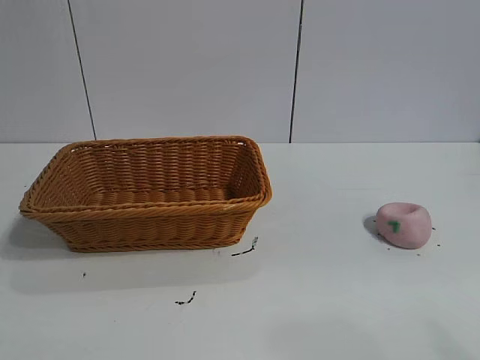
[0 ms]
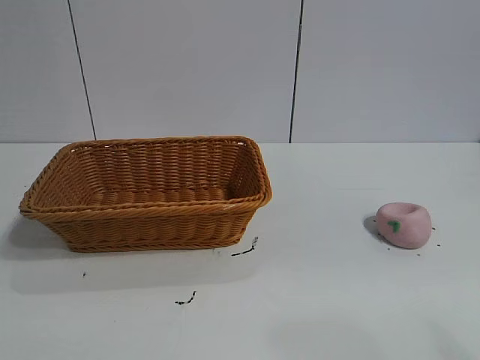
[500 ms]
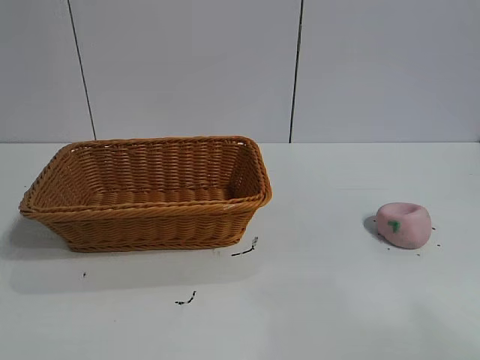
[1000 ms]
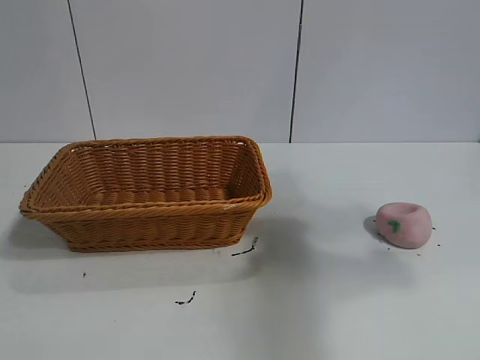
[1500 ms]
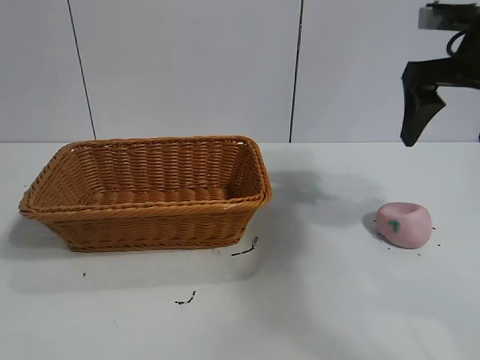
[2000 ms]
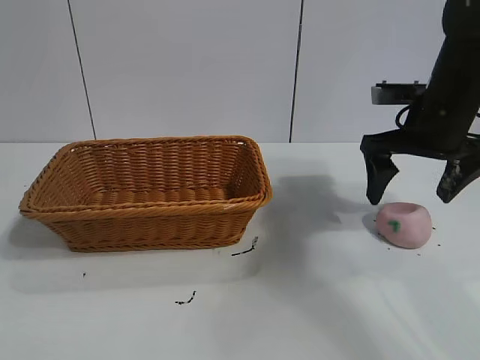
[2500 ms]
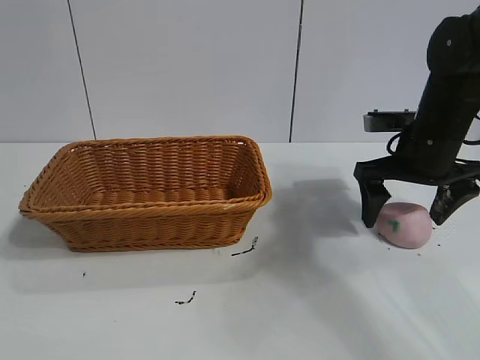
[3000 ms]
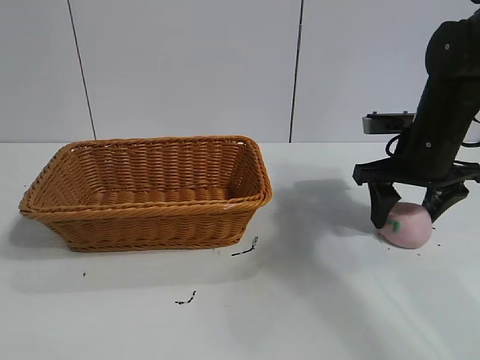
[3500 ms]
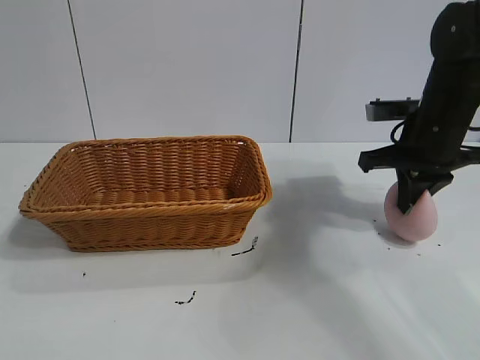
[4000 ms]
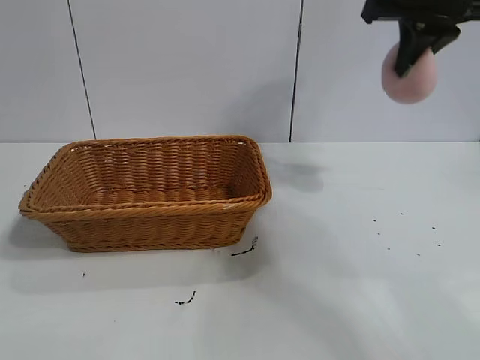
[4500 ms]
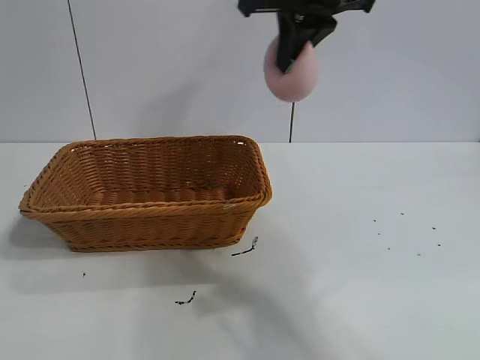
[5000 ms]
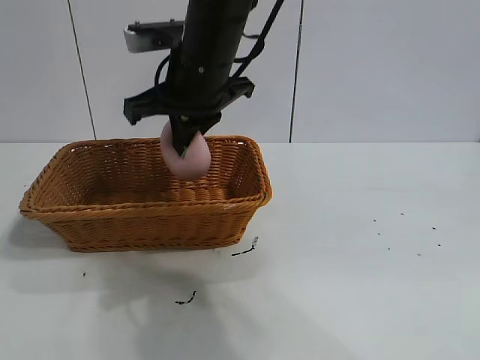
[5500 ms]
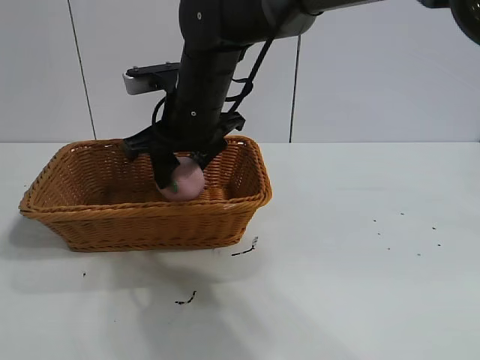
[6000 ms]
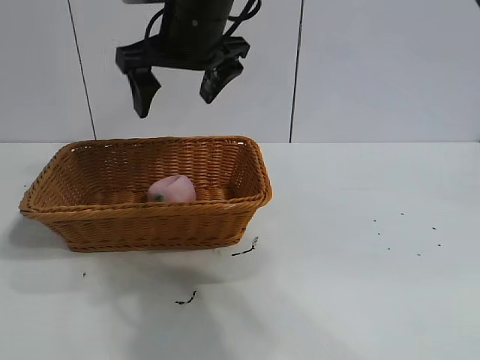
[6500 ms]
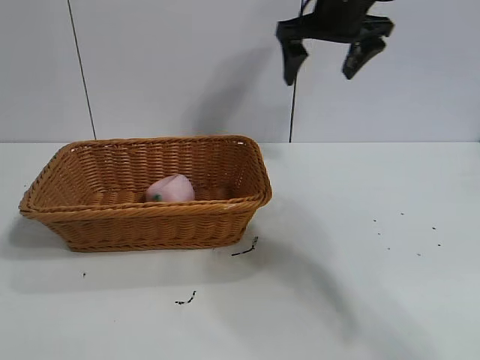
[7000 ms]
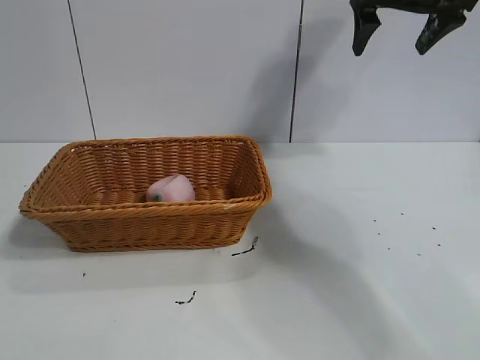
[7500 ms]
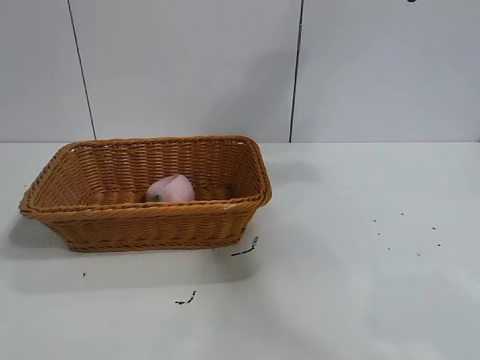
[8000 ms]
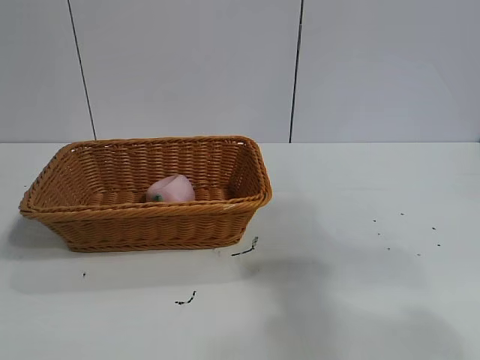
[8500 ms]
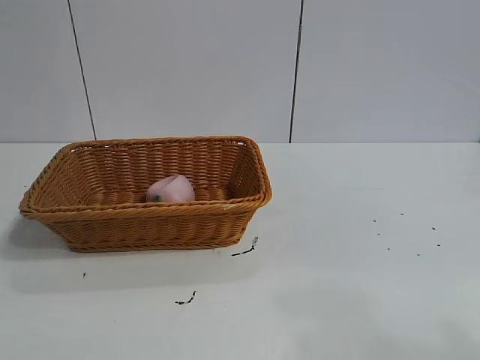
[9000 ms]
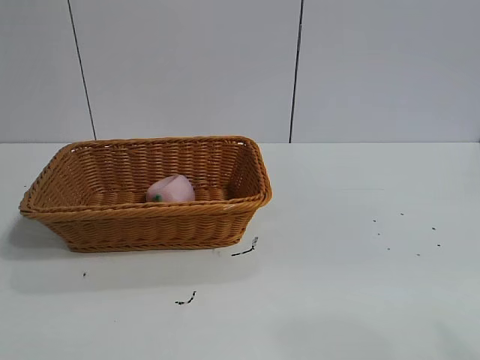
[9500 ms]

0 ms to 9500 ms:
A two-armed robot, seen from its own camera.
Task of the whole recording: pick up the peach and put it into the basket.
Step, 1000 ms to 3500 ms: Grasp the peach with right gripper.
Step, 4000 ms to 6000 ms: Place the peach in the basket with right gripper.
